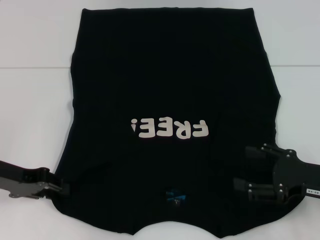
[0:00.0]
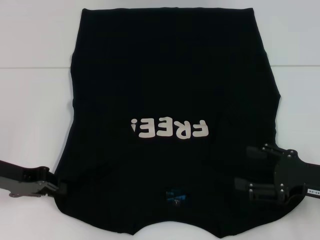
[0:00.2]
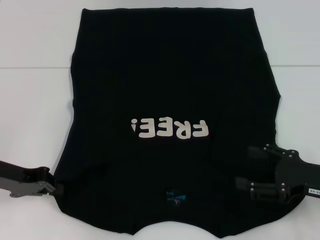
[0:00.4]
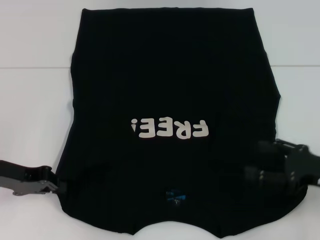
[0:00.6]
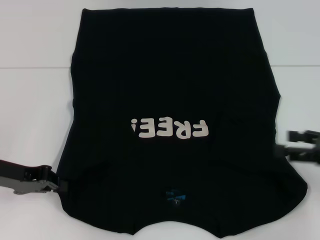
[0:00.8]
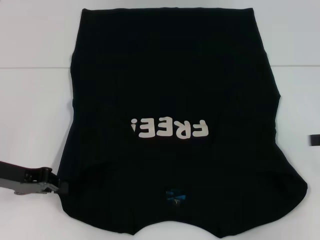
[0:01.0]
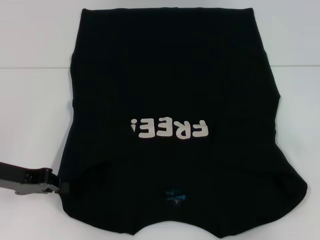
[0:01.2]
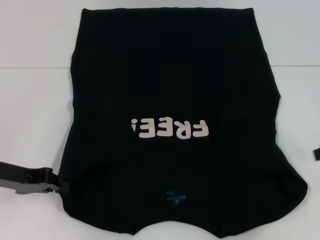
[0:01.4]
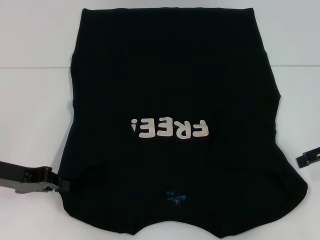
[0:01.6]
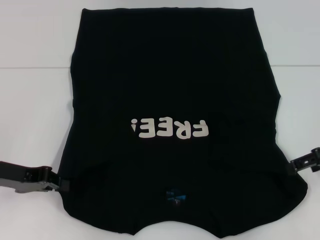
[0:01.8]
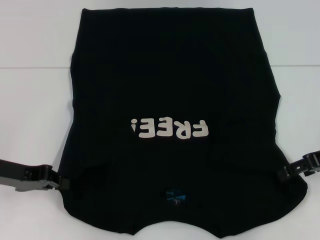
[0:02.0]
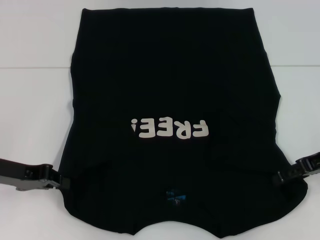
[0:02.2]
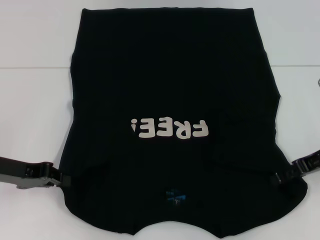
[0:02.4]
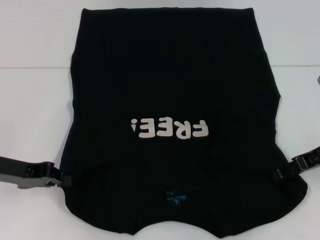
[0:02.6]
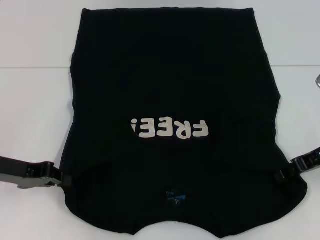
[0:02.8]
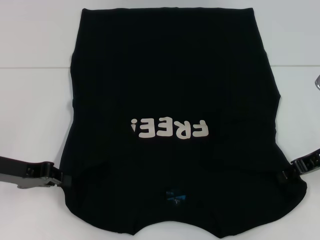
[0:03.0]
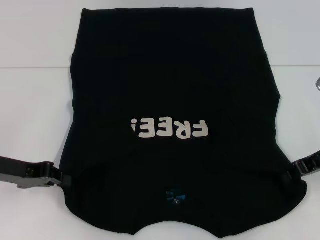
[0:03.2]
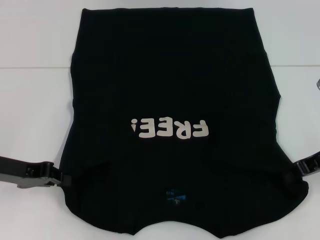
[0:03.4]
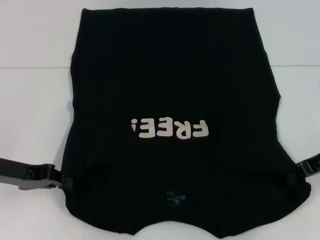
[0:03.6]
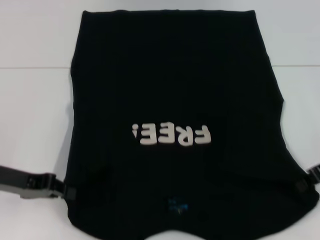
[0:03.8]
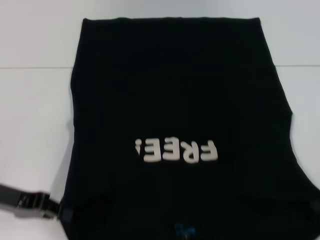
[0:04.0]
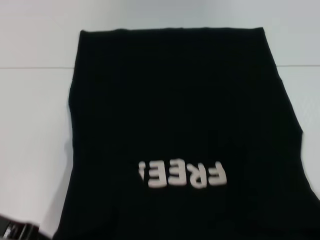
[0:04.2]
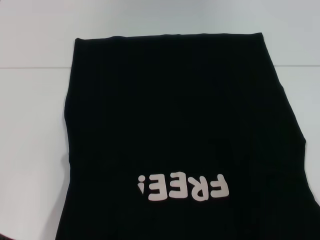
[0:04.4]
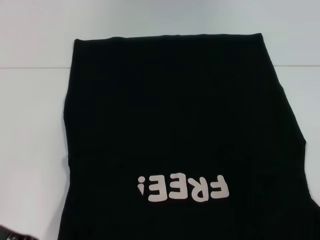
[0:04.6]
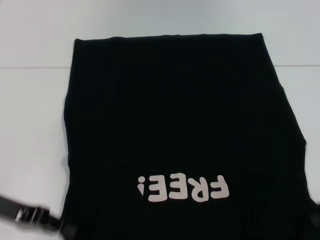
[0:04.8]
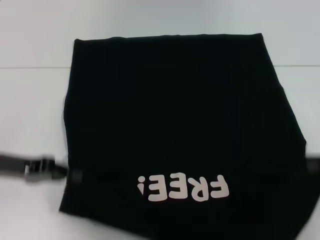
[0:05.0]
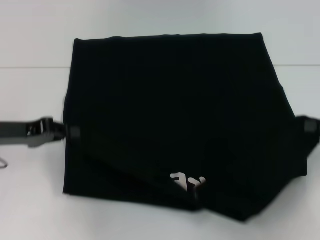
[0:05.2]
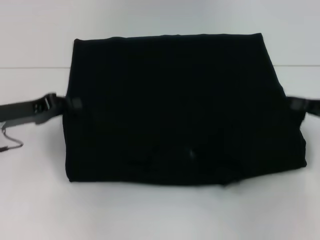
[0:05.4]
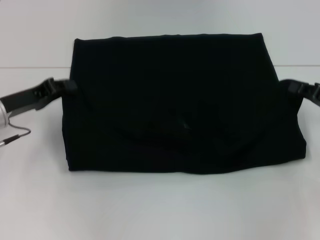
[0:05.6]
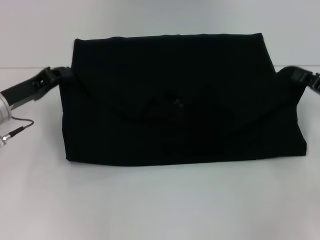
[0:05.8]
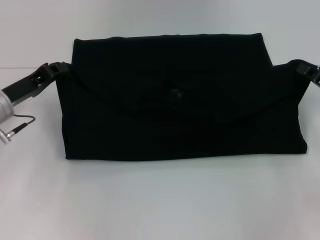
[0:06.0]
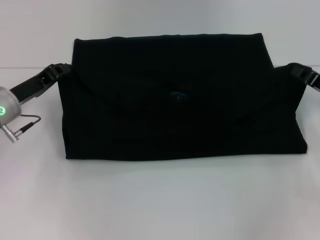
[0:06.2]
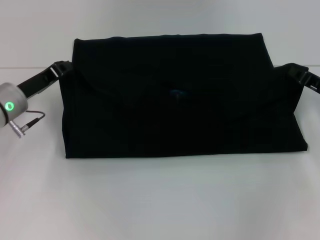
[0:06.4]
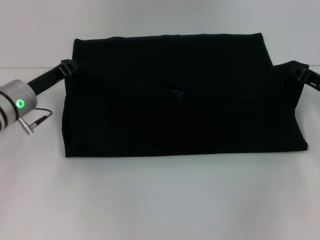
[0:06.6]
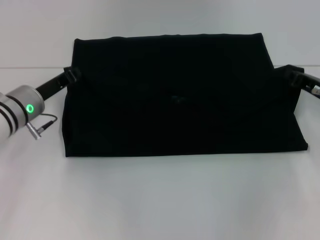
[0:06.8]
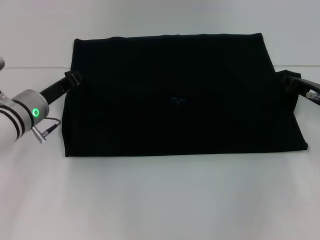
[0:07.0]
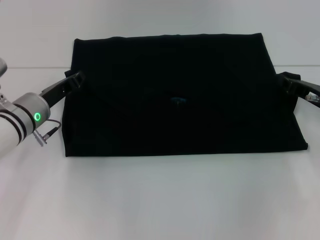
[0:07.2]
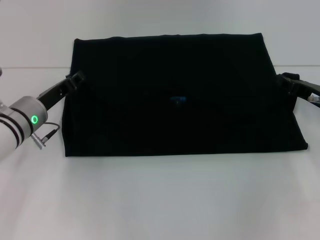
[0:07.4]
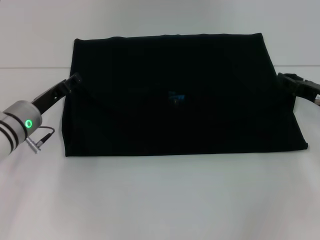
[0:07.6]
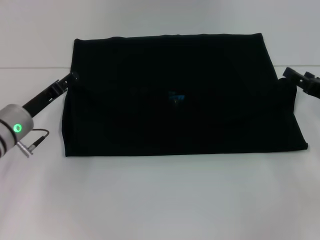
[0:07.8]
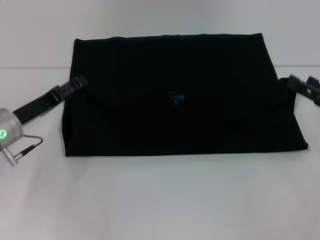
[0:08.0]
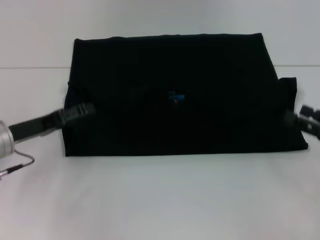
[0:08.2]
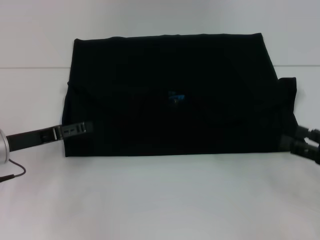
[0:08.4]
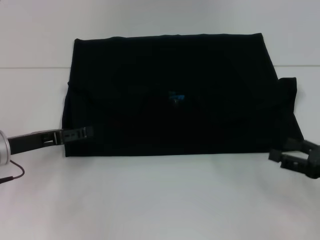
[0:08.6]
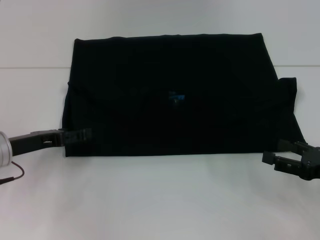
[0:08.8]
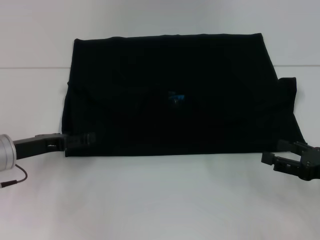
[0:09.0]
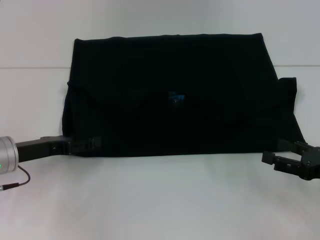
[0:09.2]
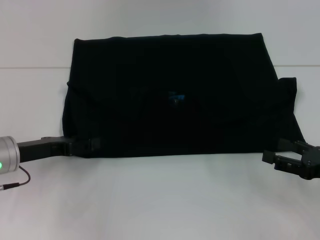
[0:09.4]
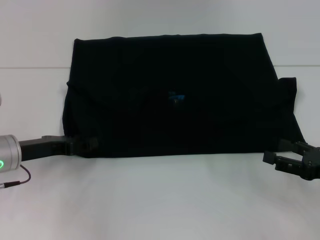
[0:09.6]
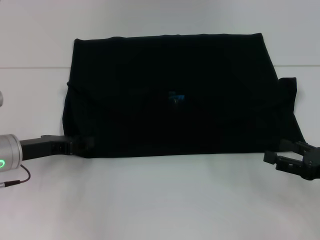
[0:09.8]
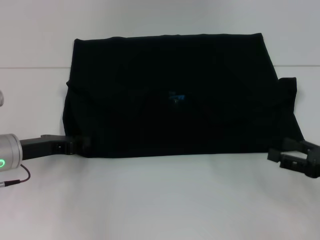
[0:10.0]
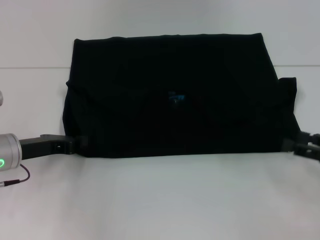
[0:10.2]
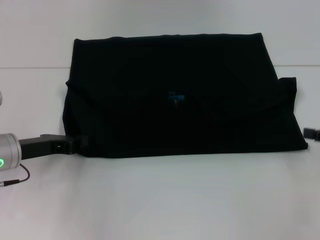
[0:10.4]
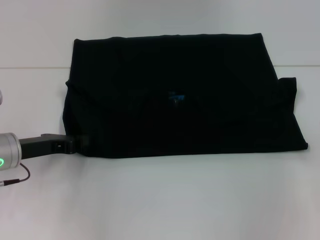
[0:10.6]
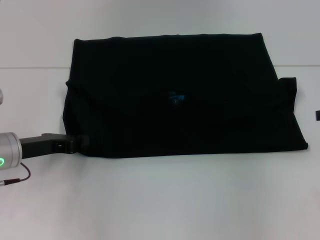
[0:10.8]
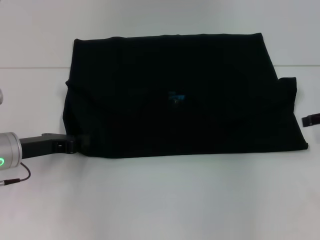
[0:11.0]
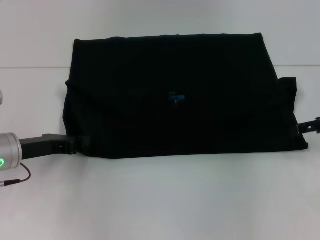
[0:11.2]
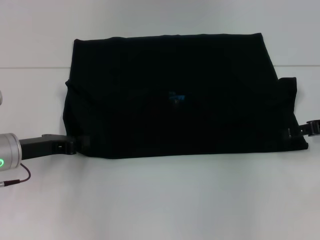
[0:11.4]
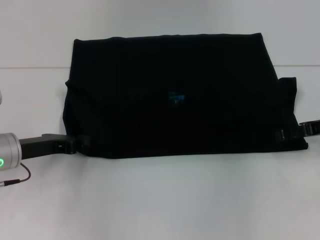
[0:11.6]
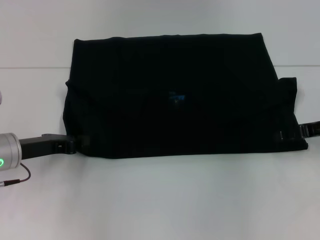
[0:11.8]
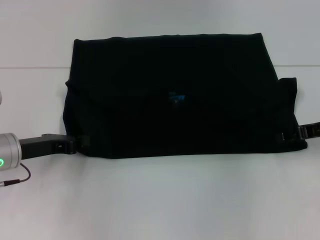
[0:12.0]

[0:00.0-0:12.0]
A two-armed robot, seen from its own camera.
Step, 0:02.0 to 0:03.6: Grab the bottom right corner with your right hand.
Step, 0:03.8 to 0:07.6: Fold the clothes with your left hand.
Step, 0:03.8 to 0:07.6: Fold the clothes with your right hand.
0:00.0 to 0:01.6: The right gripper moves upward and forward, approximately 10 cm; the left gripper closes.
0:01.6 to 0:03.0: The right gripper moves approximately 5 cm.
0:03.0 to 0:04.4: The left gripper shifts some 5 cm backward; the right gripper travels backward and to the right by about 10 cm, and closes its fingers.
0:04.4 to 0:06.0: The right gripper shifts some 5 cm forward. Meanwhile the left gripper heads forward, covering about 10 cm.
0:06.0 to 0:07.6: The left gripper changes place by roughly 5 cm.
0:07.6 to 0:09.0: The right gripper moves backward, roughly 10 cm, and opens; the left gripper moves backward, some 5 cm, and opens its fingers.
0:09.0 to 0:10.4: The right gripper moves upward and to the right, approximately 5 cm; the left gripper closes its fingers.
0:10.4 to 0:12.0: The right gripper is displaced forward and to the left by some 10 cm.

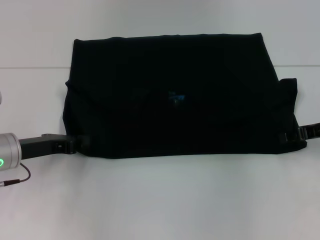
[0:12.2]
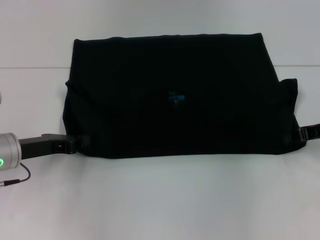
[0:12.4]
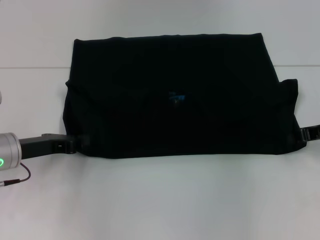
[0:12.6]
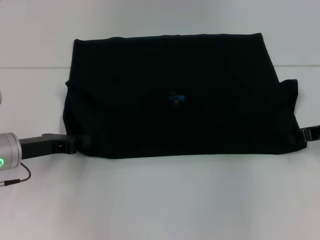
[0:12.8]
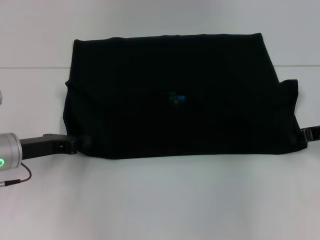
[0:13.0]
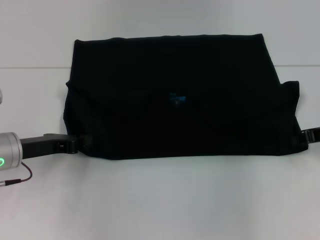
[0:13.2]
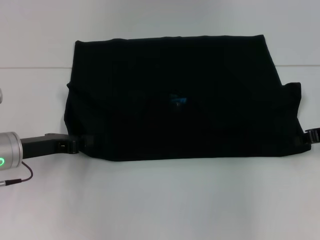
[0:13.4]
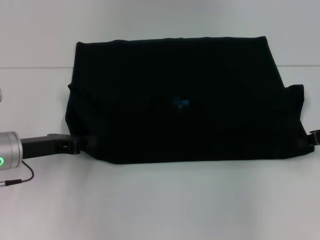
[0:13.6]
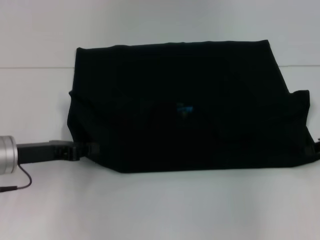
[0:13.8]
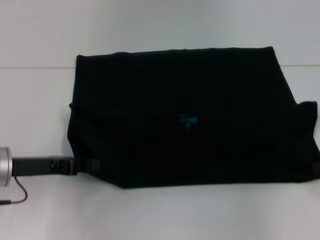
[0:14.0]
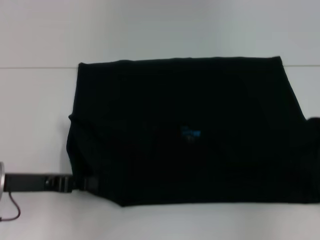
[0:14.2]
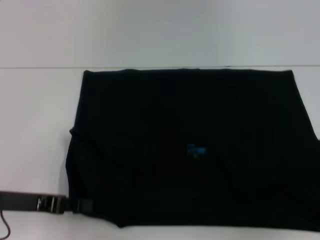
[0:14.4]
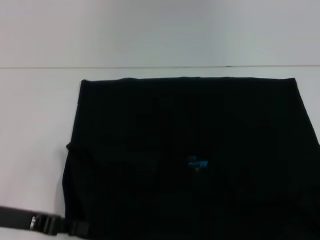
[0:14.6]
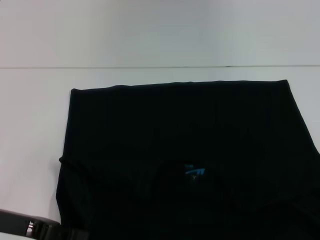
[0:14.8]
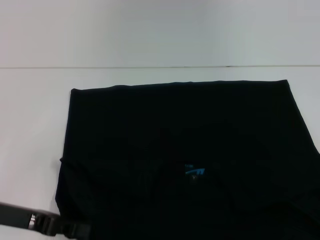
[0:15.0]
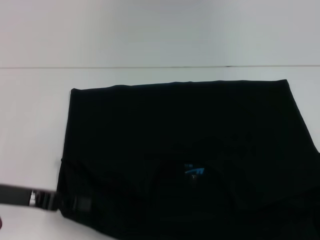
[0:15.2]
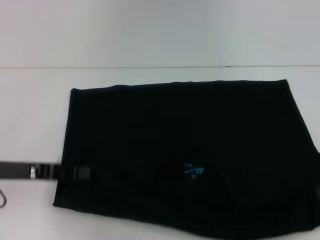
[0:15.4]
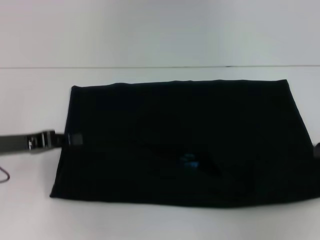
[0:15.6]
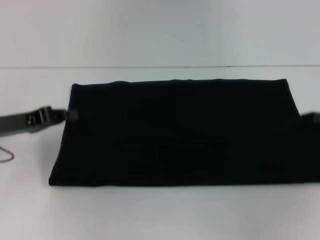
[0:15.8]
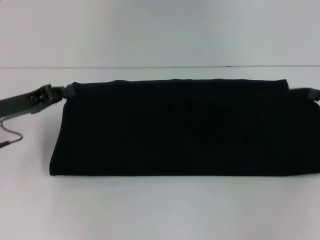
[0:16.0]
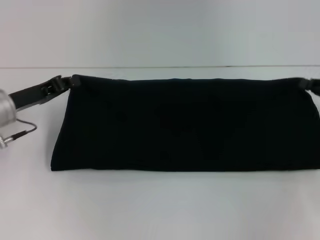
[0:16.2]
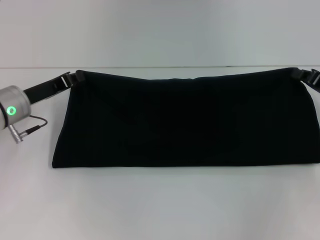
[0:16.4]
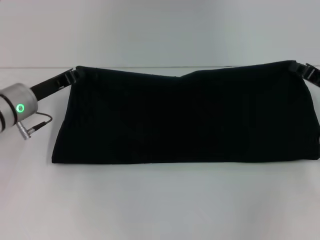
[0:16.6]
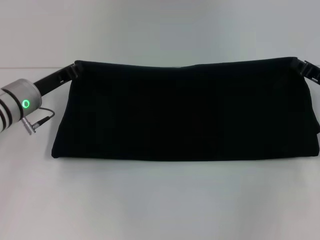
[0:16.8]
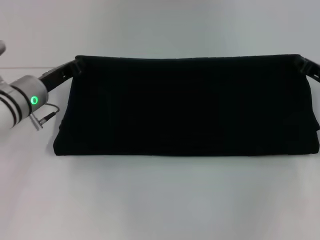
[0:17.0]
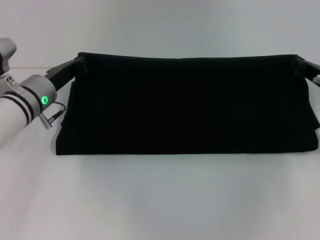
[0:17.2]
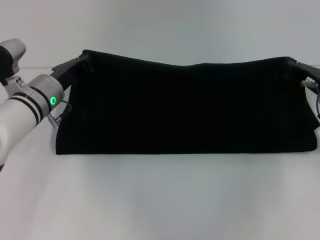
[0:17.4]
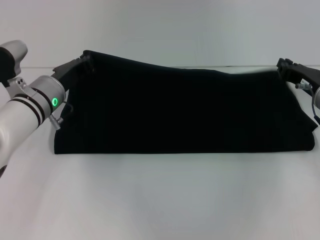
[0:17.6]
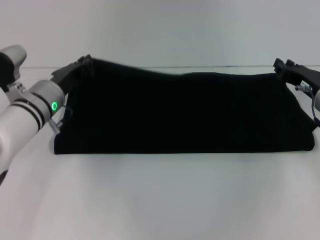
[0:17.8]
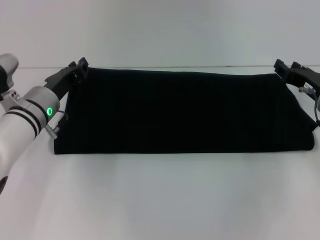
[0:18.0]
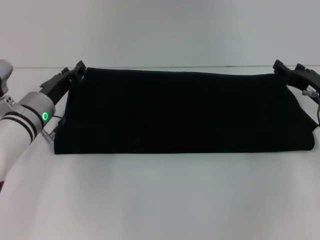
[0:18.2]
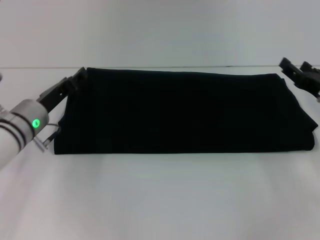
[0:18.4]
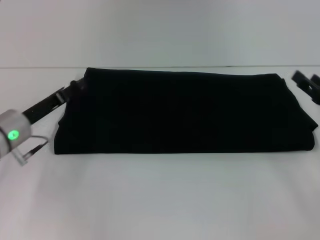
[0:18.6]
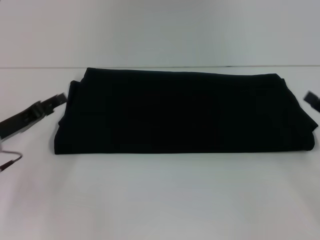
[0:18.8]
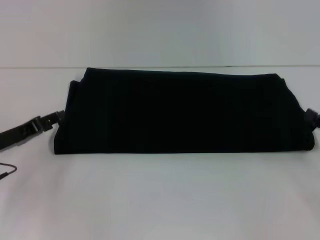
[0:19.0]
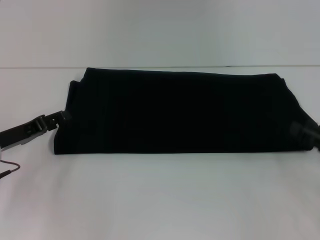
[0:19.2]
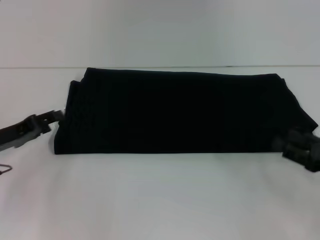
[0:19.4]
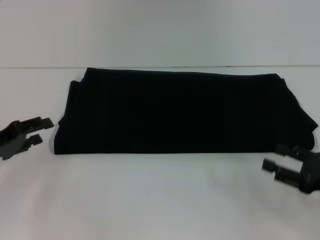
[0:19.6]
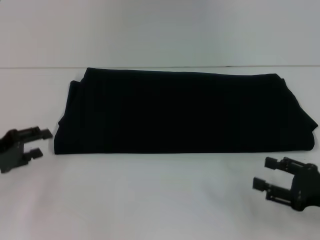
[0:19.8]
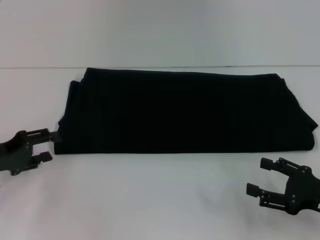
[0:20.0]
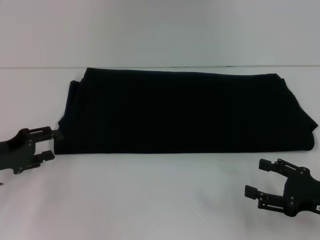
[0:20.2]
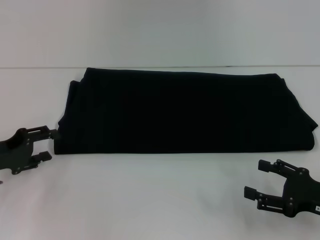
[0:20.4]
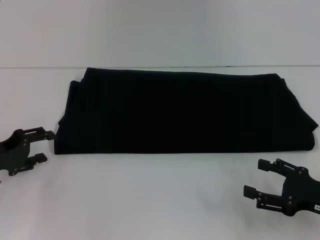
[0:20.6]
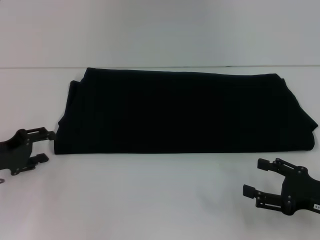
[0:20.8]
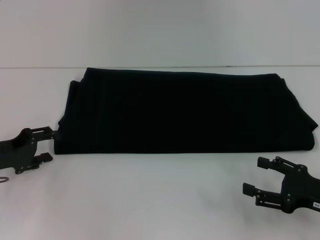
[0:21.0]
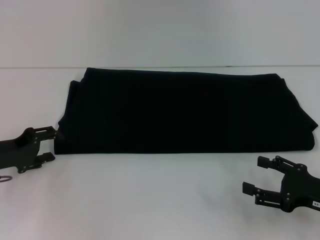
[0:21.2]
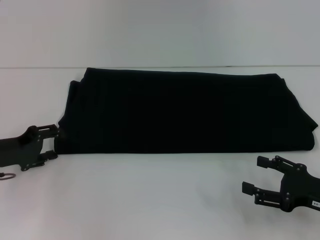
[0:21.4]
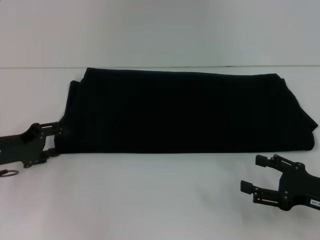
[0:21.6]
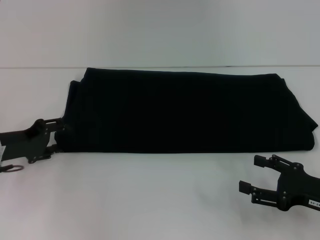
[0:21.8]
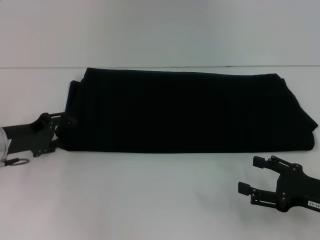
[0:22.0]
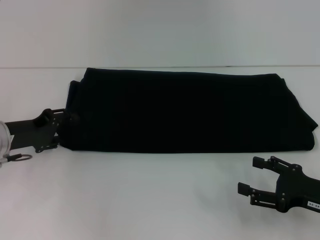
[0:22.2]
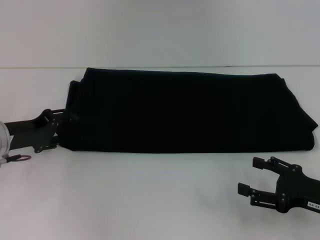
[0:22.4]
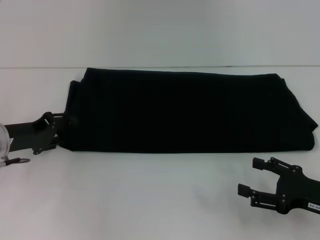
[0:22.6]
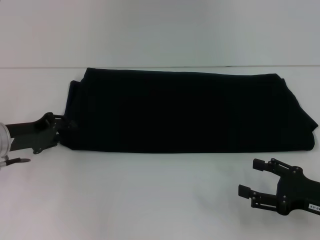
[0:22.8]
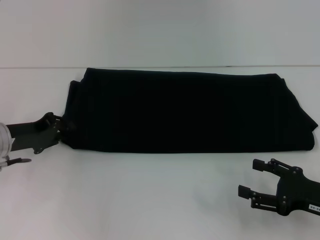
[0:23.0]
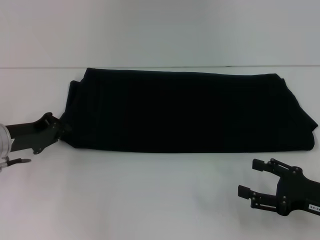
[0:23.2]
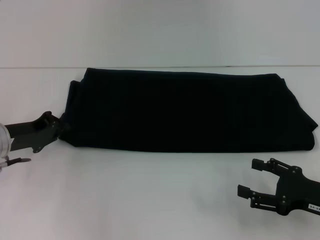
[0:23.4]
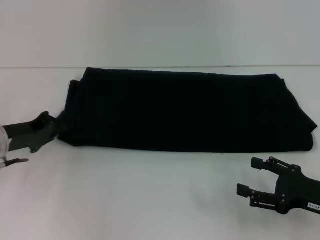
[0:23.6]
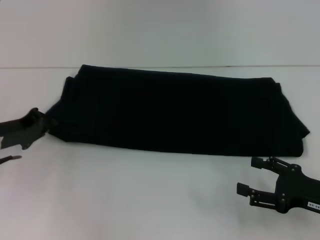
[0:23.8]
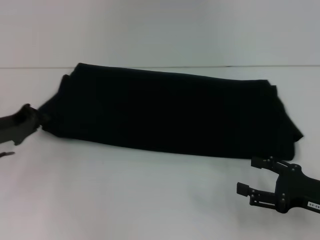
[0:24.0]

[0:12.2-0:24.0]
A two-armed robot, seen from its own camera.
Step, 0:12.2 to 0:14.6: Pull the clothes with your left hand.
Step, 0:12.2 to 0:14.6: Pull the clothes with your right hand.
Step, 0:14.8 to 0:17.8: Fold the clothes with your right hand.
0:12.2 to 0:13.6: The right gripper closes its fingers.
0:13.6 to 0:15.2: Both grippers travel together backward, approximately 5 cm.
0:15.2 to 0:16.6: The right gripper travels forward and to the left by about 10 cm; the left gripper heads forward, covering about 10 cm.
0:16.6 to 0:18.2: The right gripper opens its fingers.
0:18.2 to 0:19.6: The left gripper moves to the left and backward, approximately 15 cm, and opens its fingers. The right gripper heads backward, covering roughly 15 cm, and opens up.
0:21.0 to 0:22.6: There are only small adjustments of the grippers.
0:22.6 to 0:24.0: The left gripper closes its fingers.
